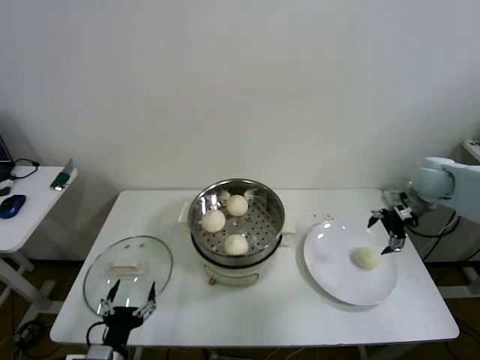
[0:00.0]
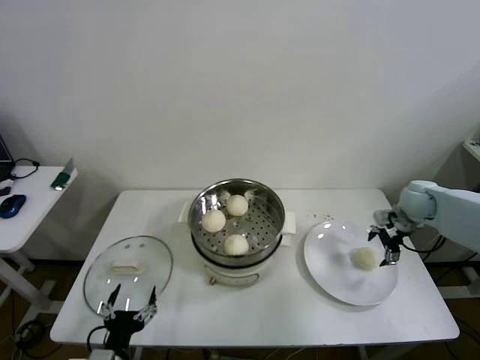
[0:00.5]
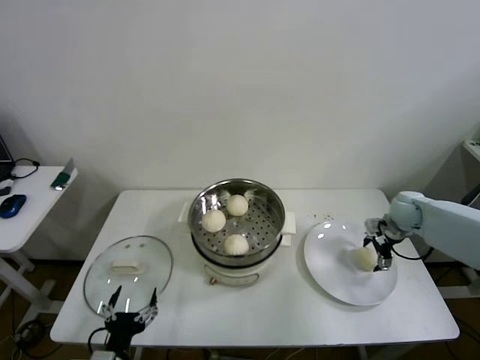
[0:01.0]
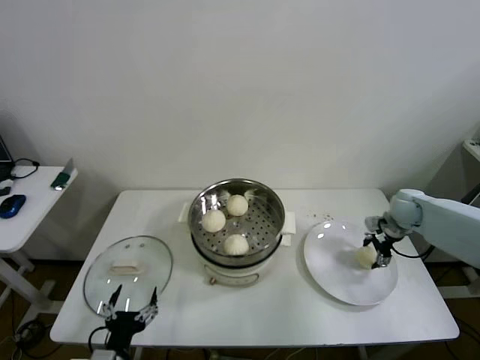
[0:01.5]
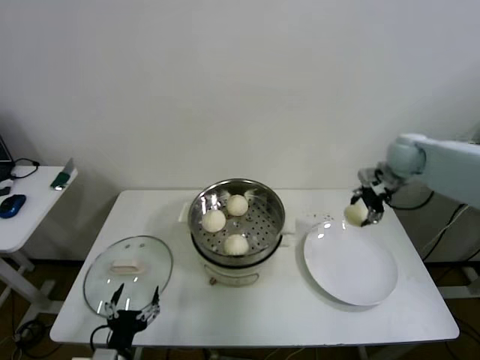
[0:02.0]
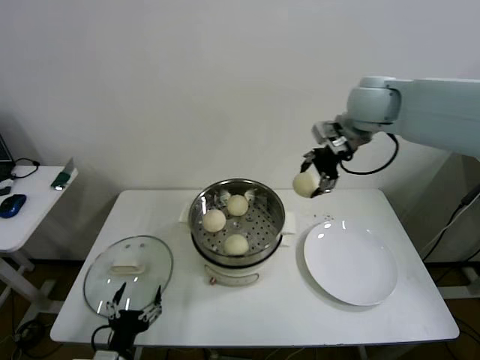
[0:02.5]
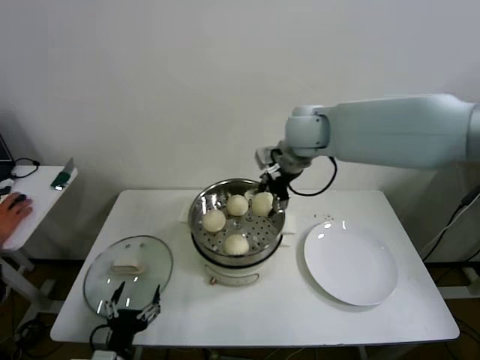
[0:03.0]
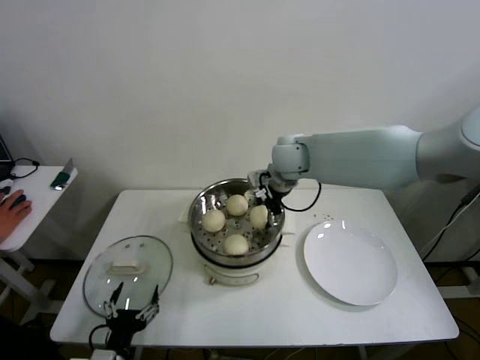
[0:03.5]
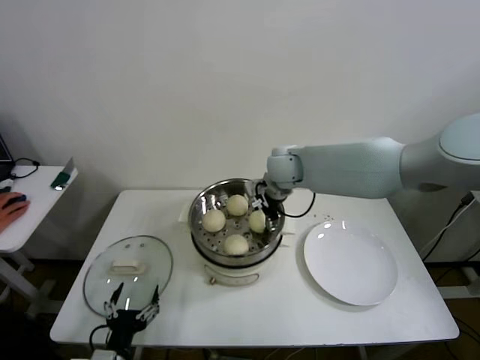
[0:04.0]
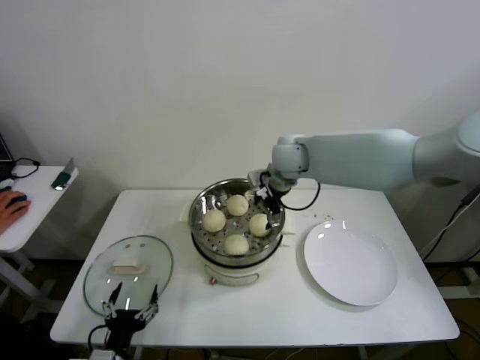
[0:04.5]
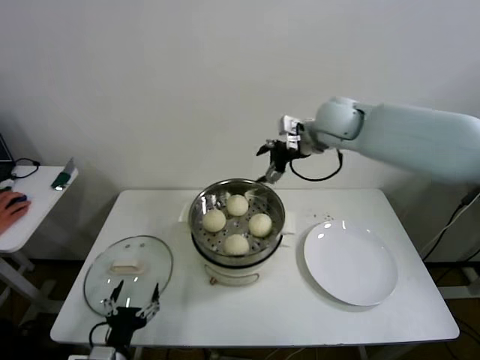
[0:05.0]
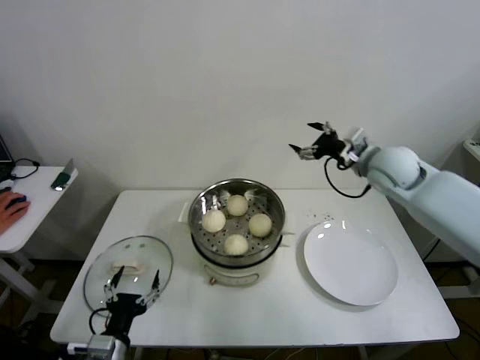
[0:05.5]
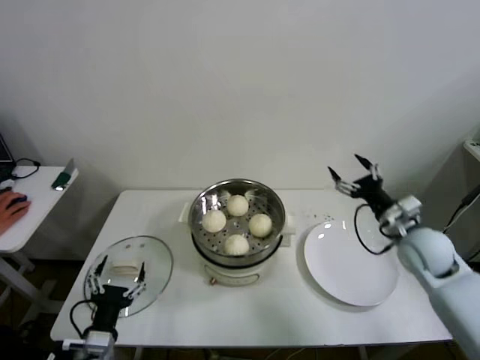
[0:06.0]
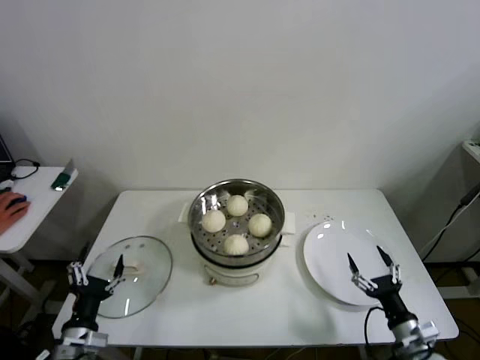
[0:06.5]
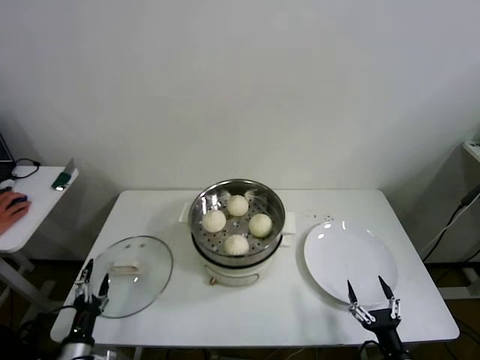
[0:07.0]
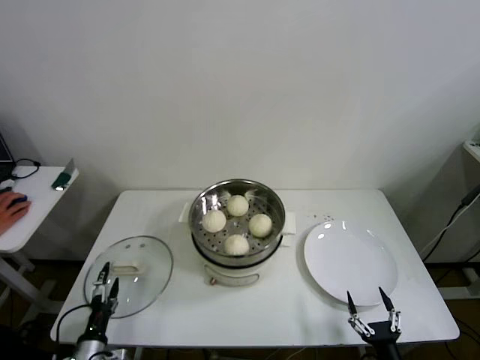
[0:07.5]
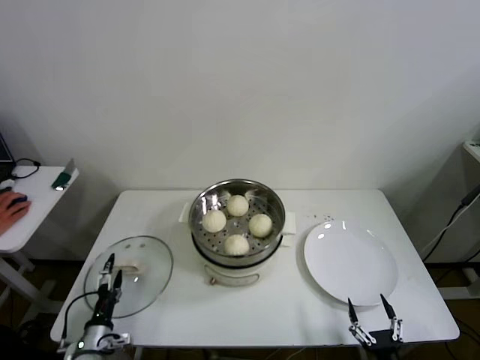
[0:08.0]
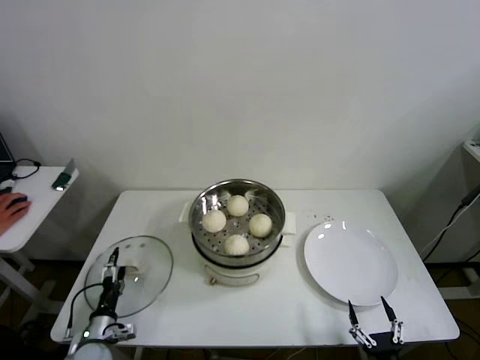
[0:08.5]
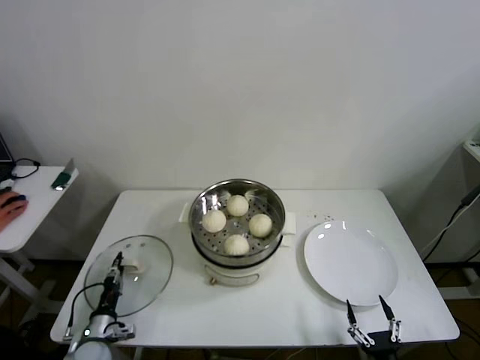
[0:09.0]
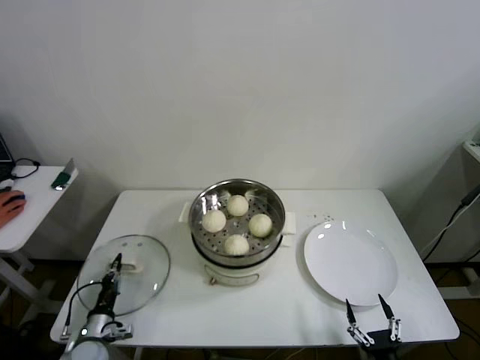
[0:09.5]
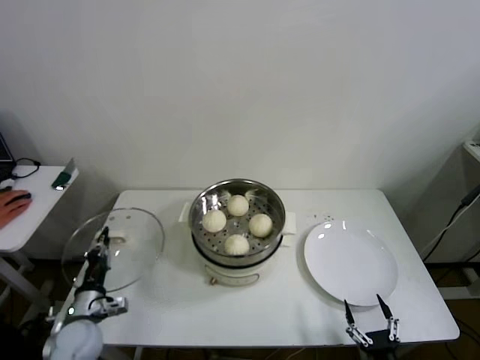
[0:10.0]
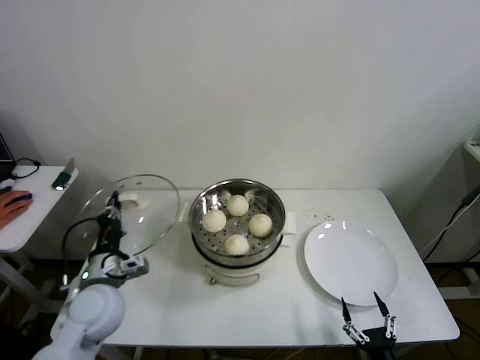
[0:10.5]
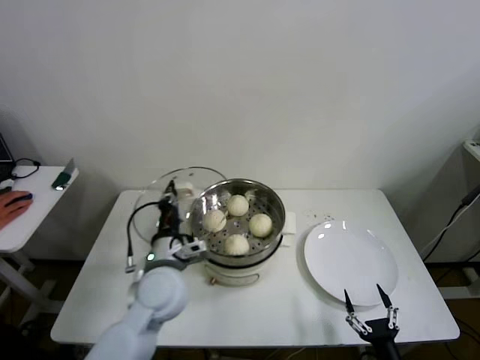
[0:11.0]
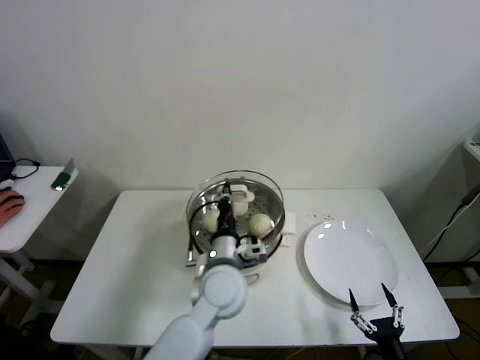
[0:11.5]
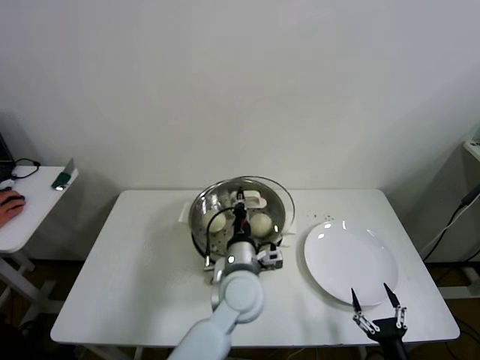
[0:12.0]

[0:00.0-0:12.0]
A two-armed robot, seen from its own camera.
Step, 0:01.5 to 0:04.0: Place the baozi on the steamer with right gripper.
Step, 0:04.5 to 0:09.0: Grasp the pot lid with left gripper.
0:00.0 to 0:02.0: The right gripper goes some 5 cm to the left, goes downward and returns, some 10 cm each way, and closes up.
0:02.0 to 0:04.0: The right gripper shifts roughly 30 cm to the left.
0:04.0 to 0:06.0: The right gripper goes approximately 30 cm to the right and backward.
0:06.0 to 0:08.0: The left gripper heads downward and to the left, covering about 15 cm. Meanwhile the right gripper goes roughly 40 cm backward and downward.
0:08.0 to 0:10.0: The left gripper is displaced upward by some 10 cm, and closes.
0:10.0 to 0:12.0: The left gripper goes about 35 cm to the right.

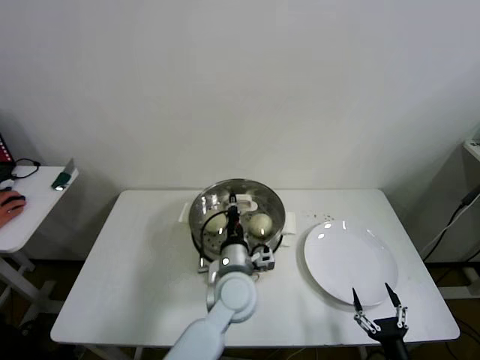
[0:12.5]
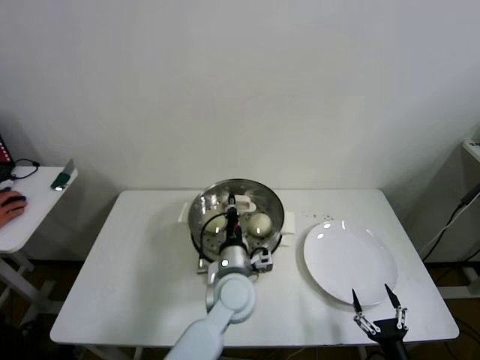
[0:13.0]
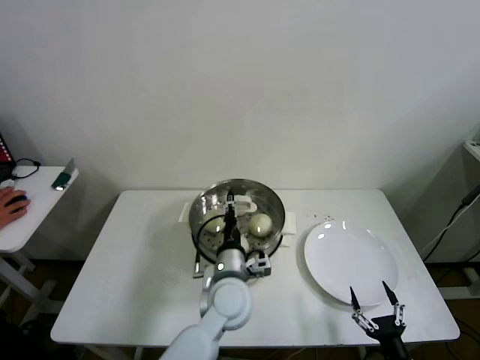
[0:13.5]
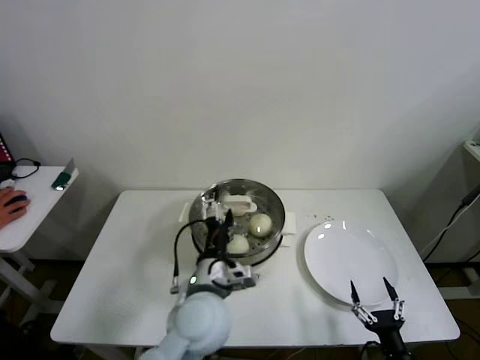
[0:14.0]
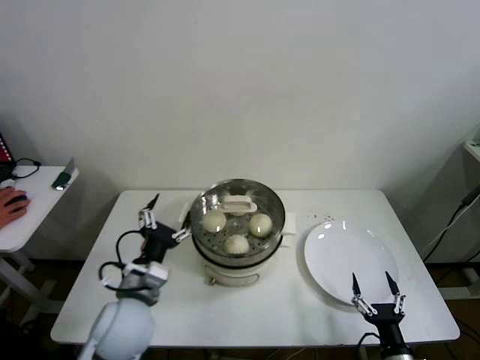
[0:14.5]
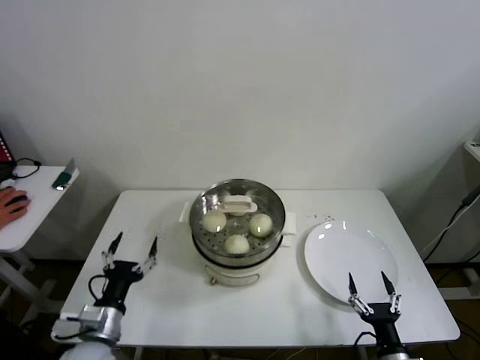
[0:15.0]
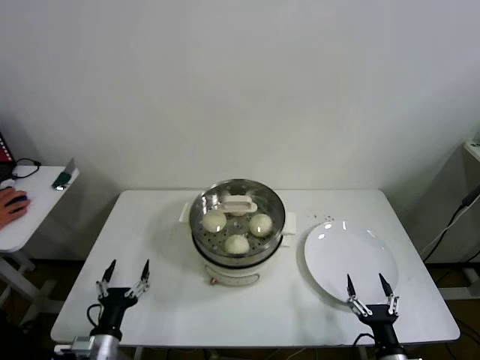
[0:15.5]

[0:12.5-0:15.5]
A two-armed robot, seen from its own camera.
0:12.5 to 0:14.0: The left gripper heads backward, covering some 5 cm, and opens its fingers.
0:14.0 to 0:15.5: The left gripper travels to the left and downward by about 30 cm.
